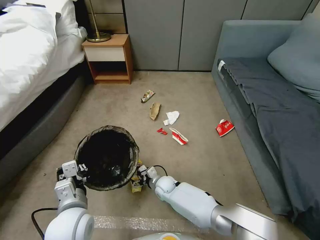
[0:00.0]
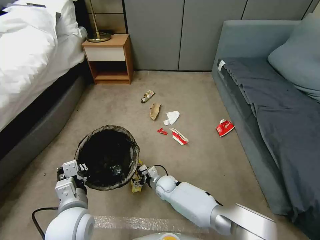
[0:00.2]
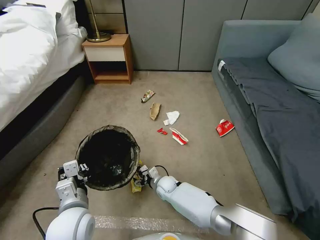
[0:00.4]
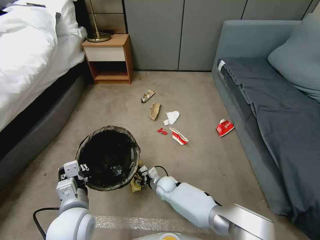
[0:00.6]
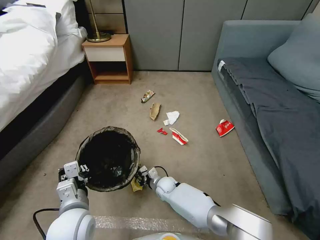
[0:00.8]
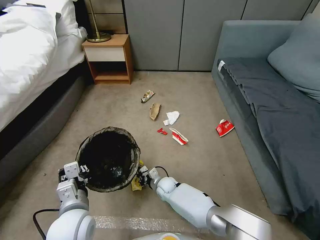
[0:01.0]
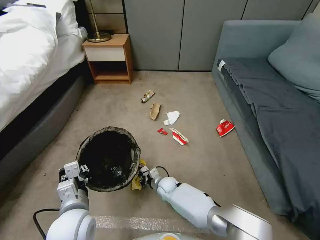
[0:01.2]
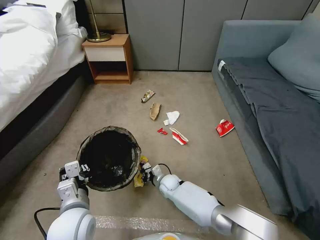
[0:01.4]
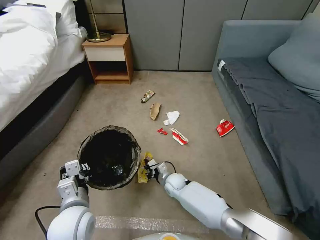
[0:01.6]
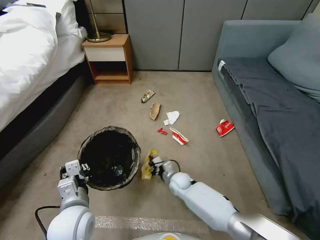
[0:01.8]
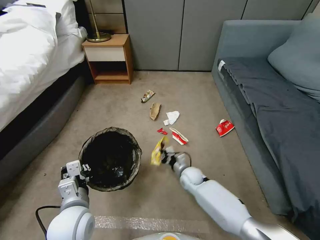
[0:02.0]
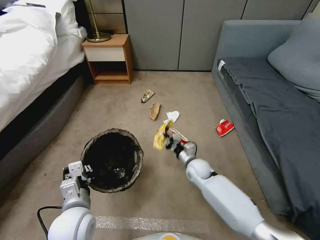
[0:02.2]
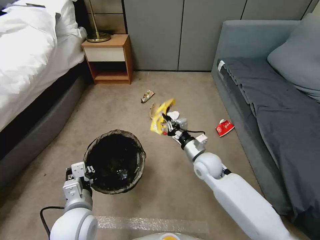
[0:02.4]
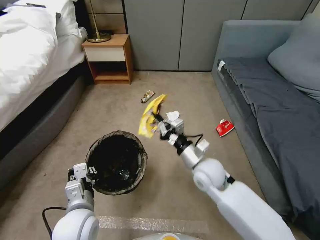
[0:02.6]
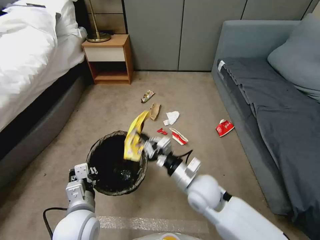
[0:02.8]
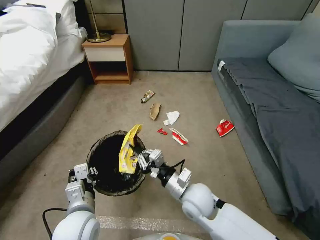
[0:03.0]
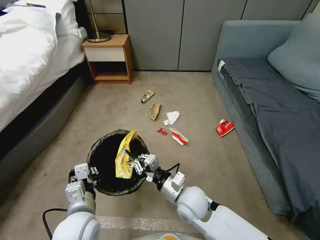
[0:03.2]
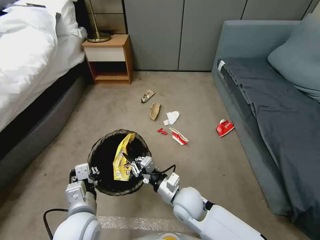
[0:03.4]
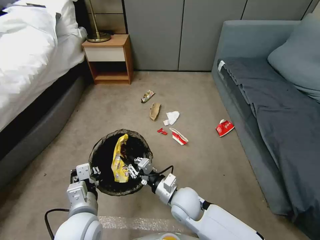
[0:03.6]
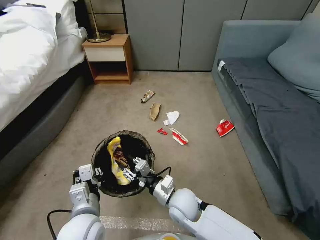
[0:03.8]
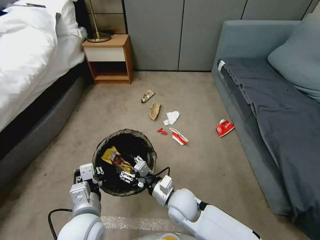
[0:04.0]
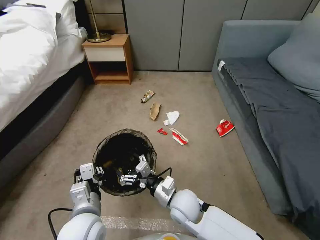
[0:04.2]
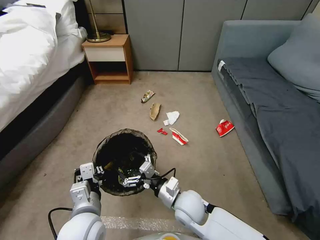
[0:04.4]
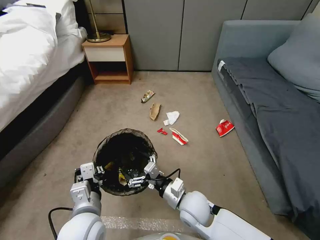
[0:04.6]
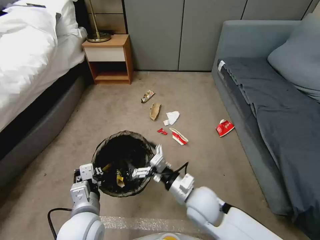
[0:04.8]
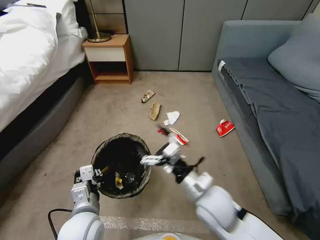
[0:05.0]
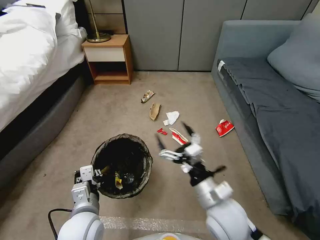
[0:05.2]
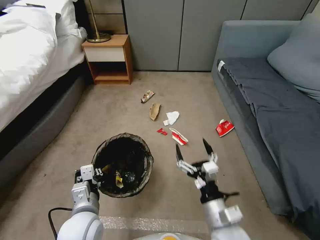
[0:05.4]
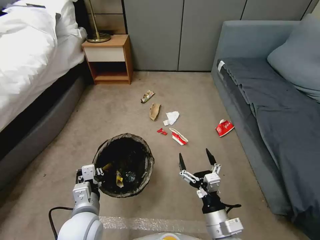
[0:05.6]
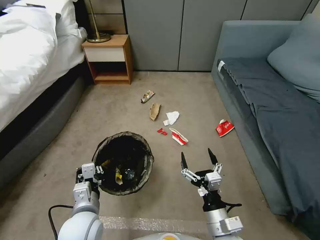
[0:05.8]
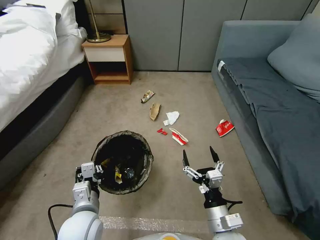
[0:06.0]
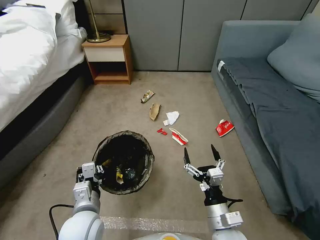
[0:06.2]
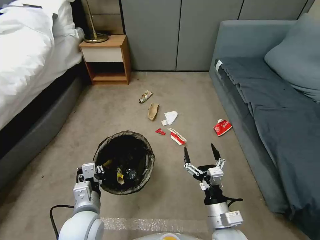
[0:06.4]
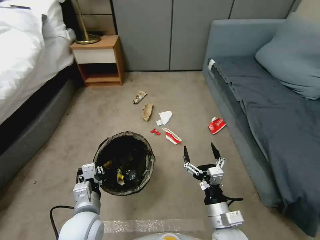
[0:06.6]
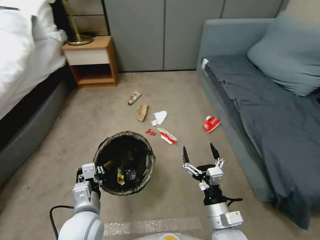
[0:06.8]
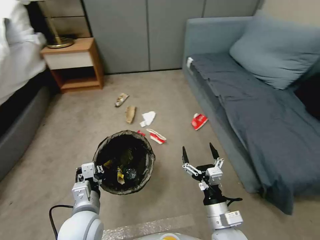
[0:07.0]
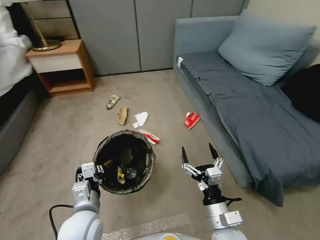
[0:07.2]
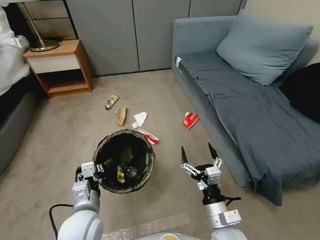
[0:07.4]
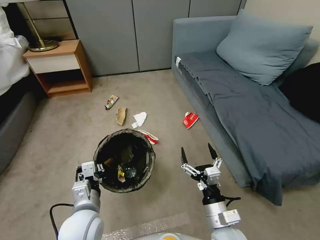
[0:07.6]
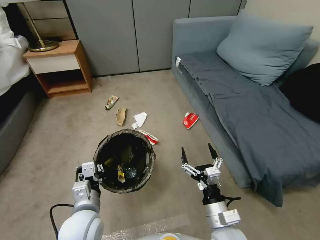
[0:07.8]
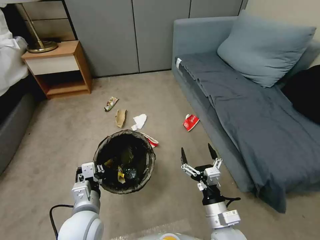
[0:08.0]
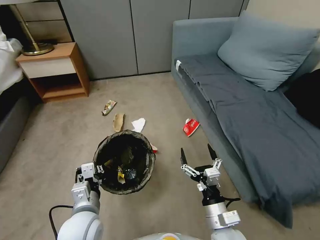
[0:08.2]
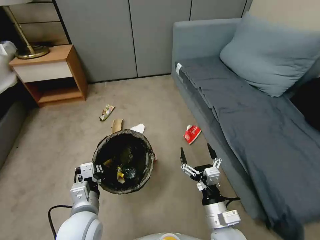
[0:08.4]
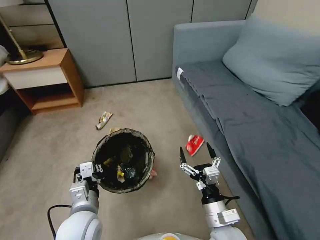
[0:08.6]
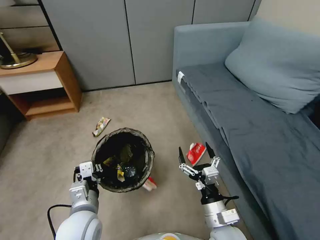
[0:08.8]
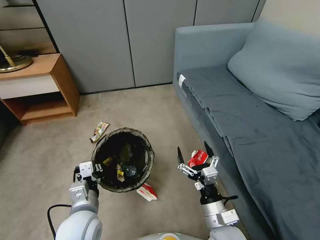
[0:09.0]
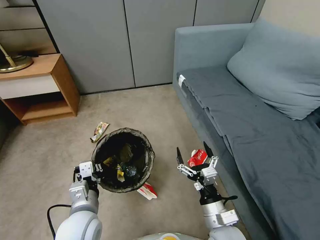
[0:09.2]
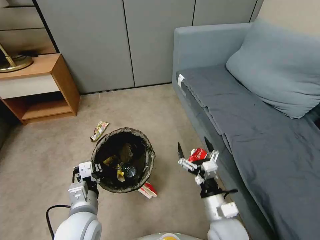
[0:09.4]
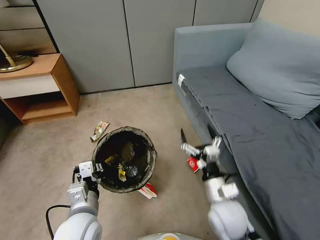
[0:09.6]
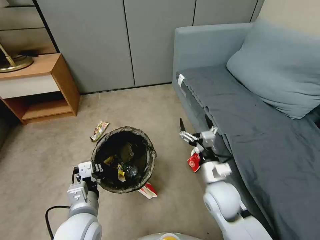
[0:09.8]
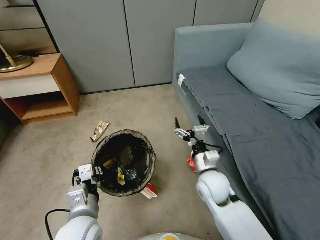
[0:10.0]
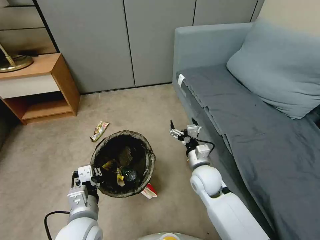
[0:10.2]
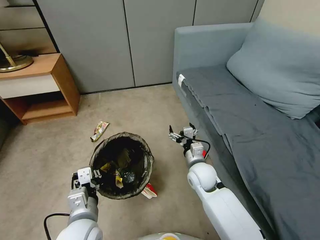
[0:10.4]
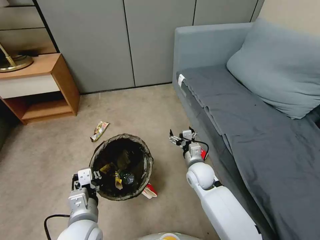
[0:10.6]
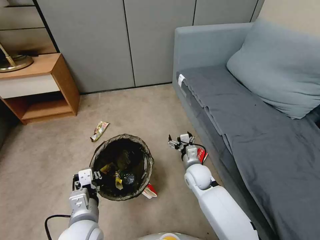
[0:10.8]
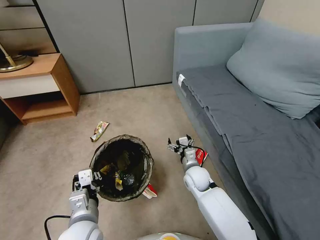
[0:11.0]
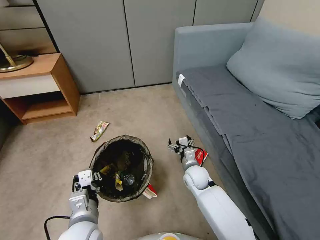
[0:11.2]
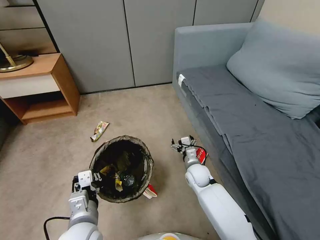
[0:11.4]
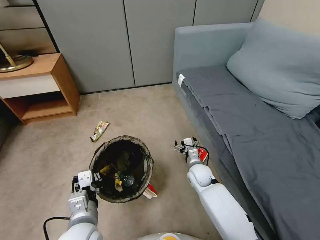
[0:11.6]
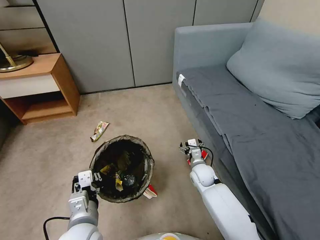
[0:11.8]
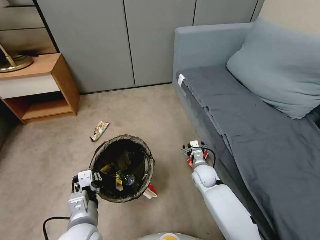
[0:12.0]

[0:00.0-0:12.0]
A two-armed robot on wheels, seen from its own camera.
Task of the whole recording: Pick up the trash bin, then pick up the garbage from the floor and place it into the trash bin.
0:00.0 to 0:01.6: The right gripper closes its fingers.
0:01.6 to 0:03.0: The right gripper moves upward and backward, about 20 cm.
0:03.0 to 0:04.4: The right gripper opens up.
0:04.4 to 0:06.0: The right gripper shifts some 15 cm backward and to the right.
0:09.0 to 0:10.4: The right gripper heads forward, covering roughly 20 cm.
0:10.4 to 0:12.0: The right gripper shifts about 10 cm downward.

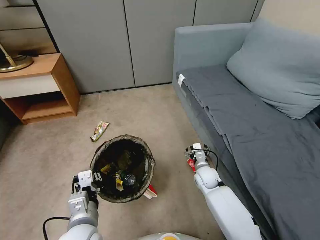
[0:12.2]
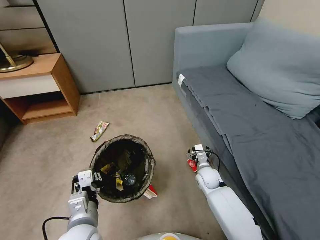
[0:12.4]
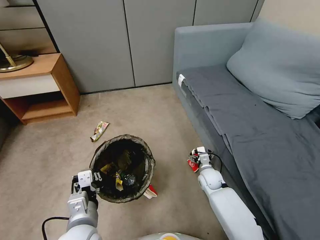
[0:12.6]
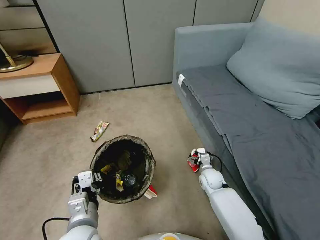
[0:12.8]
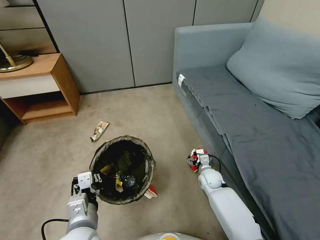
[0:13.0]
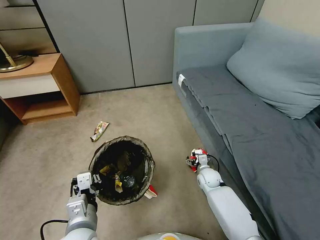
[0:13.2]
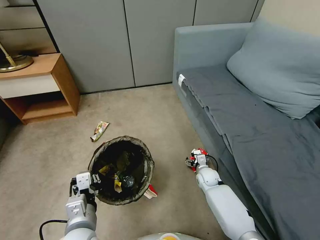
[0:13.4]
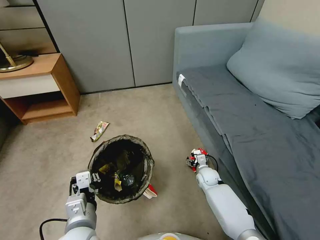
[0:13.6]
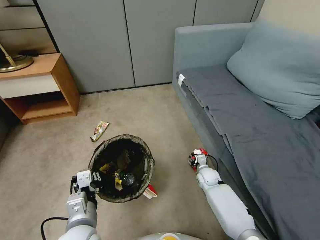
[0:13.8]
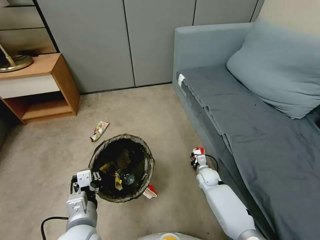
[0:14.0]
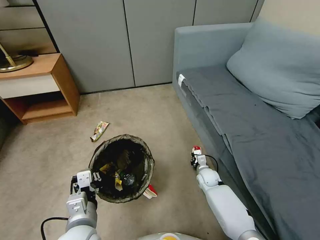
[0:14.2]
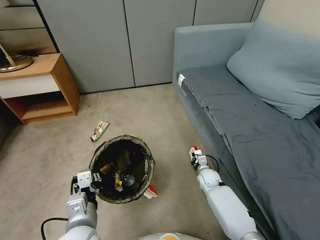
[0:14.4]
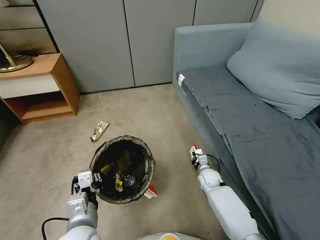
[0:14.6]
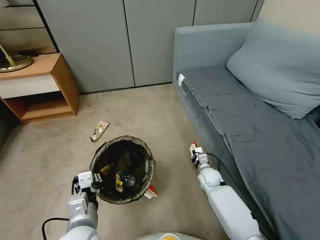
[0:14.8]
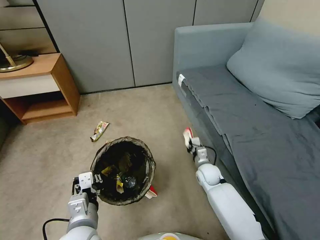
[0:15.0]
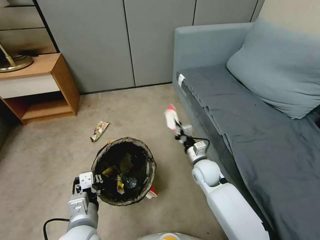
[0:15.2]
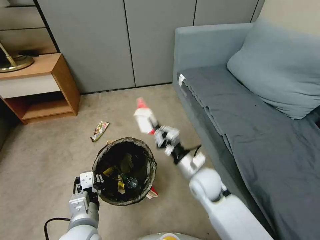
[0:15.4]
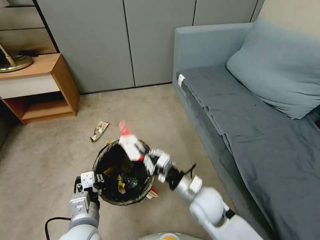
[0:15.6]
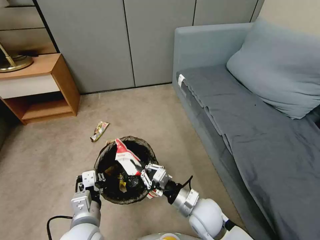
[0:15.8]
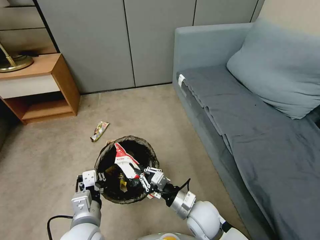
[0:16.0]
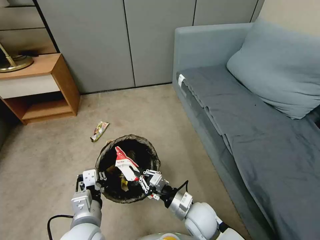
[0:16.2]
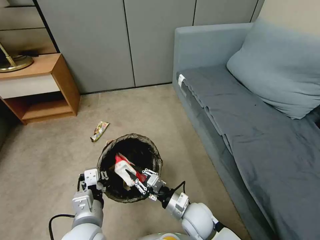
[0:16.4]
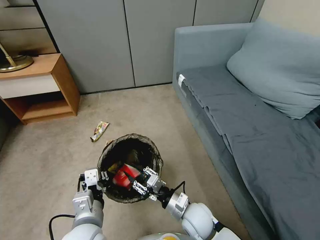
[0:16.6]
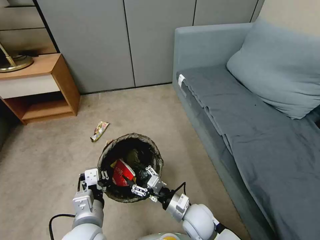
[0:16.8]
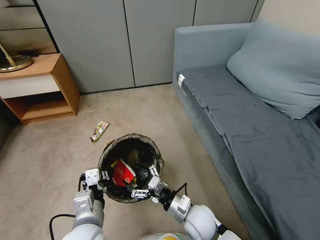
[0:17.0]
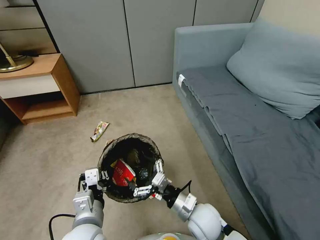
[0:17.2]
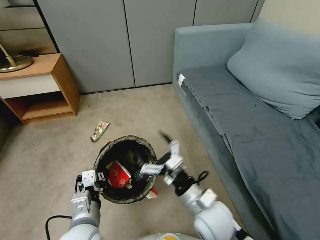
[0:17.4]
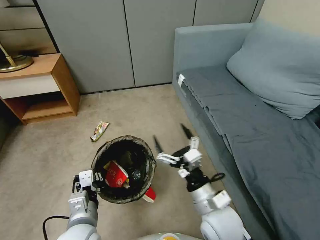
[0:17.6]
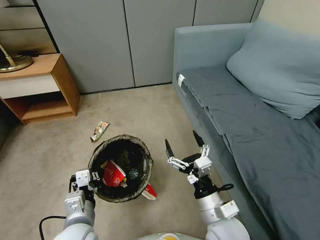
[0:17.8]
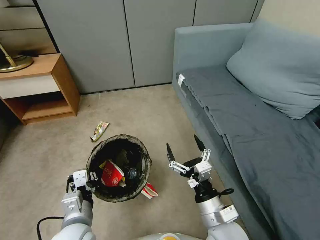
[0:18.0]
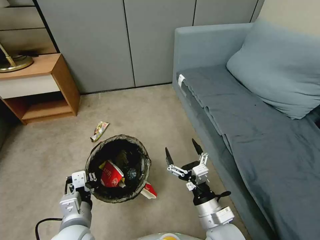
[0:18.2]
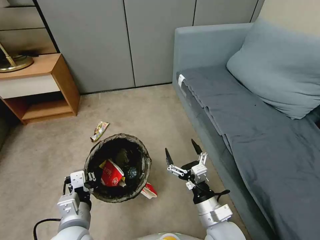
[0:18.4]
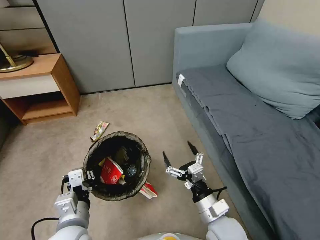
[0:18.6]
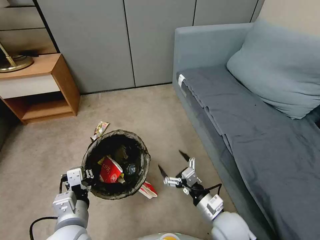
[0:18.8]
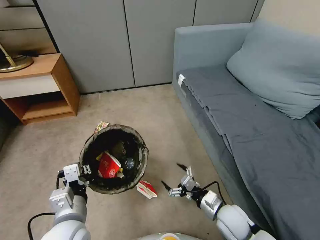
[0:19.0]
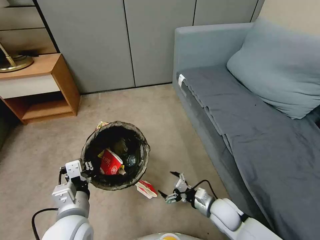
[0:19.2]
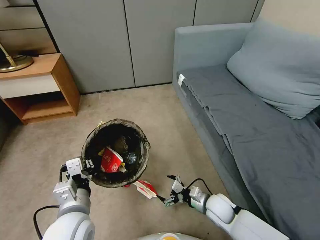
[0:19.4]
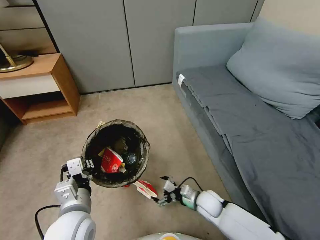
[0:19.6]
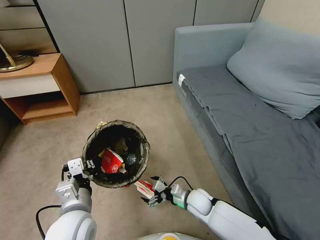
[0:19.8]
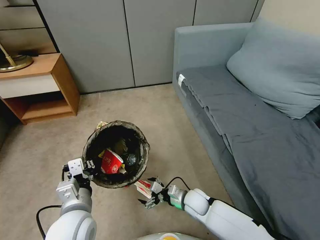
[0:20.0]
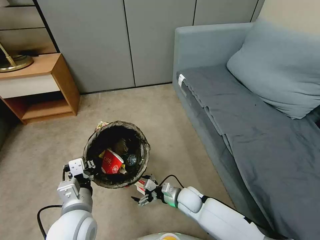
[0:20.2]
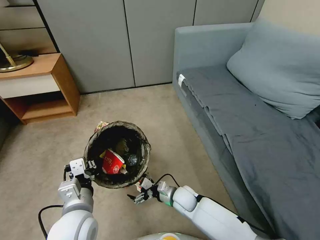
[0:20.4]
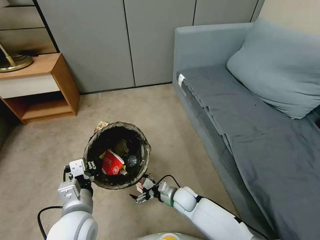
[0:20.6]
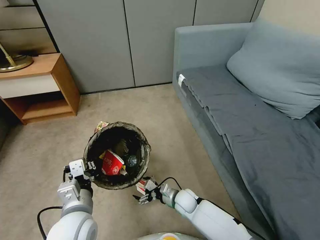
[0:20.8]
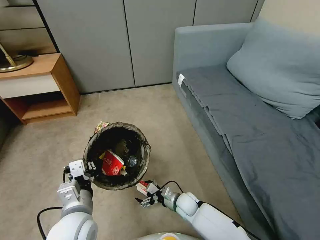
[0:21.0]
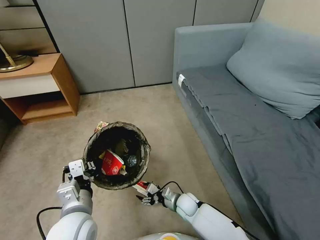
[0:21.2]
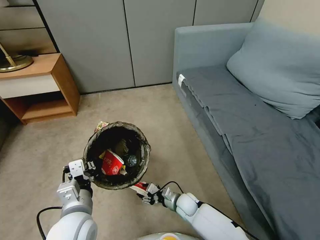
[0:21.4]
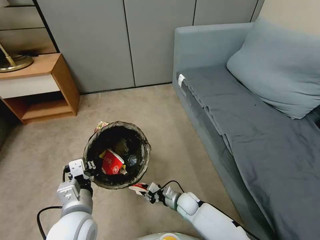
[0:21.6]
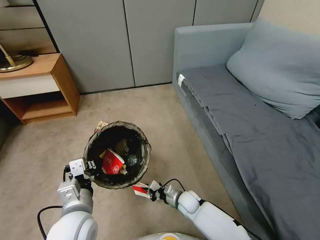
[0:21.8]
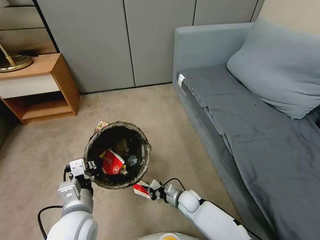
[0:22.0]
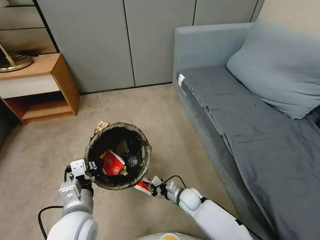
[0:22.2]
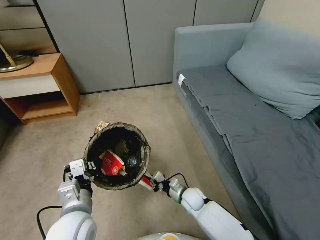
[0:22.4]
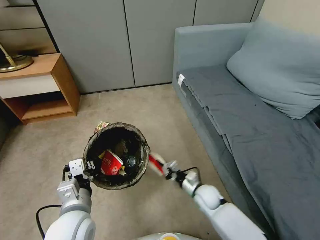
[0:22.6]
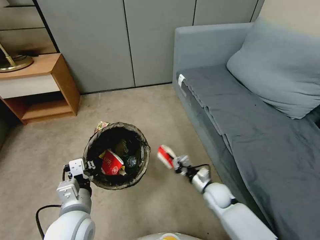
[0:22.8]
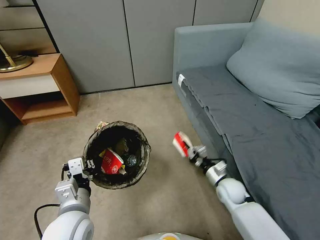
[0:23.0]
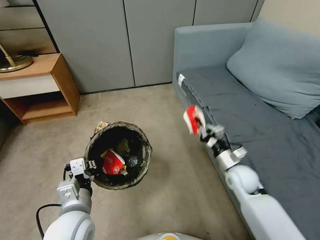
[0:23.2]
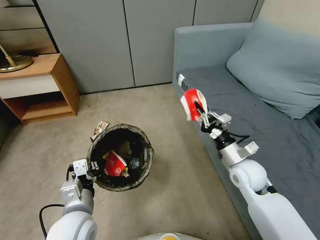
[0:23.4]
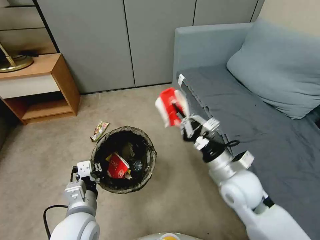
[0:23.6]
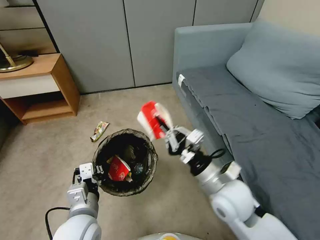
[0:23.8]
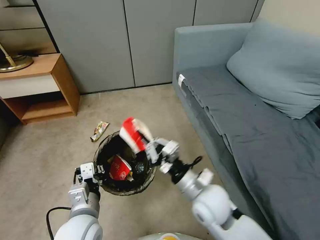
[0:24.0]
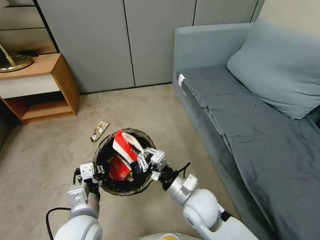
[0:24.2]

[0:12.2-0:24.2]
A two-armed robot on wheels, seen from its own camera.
Task of the whole recording: Pick up the trash bin, then pick up the garbage from the floor and place it into the trash bin.
0:12.2 to 0:13.8: The right gripper moves downward, some 5 cm.
0:13.8 to 0:15.2: The right gripper goes about 15 cm upward, and closes its fingers.
0:15.2 to 0:16.6: The right gripper moves backward, some 15 cm, and opens up.
0:16.6 to 0:18.2: The right gripper goes approximately 10 cm upward and backward, and opens up.
0:18.2 to 0:19.8: The right gripper moves downward and forward, some 20 cm.
0:19.8 to 0:21.2: The right gripper shifts roughly 5 cm downward.
0:21.2 to 0:22.6: The right gripper travels to the right and upward by roughly 10 cm, and closes its fingers.
0:22.6 to 0:24.2: The right gripper heads upward and backward, covering approximately 20 cm.
